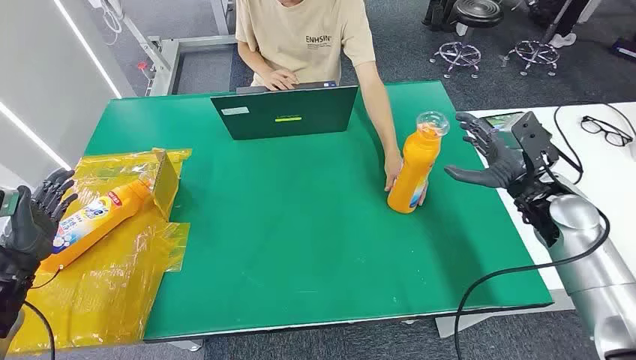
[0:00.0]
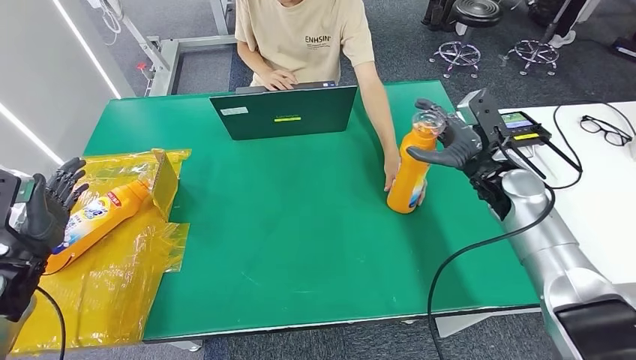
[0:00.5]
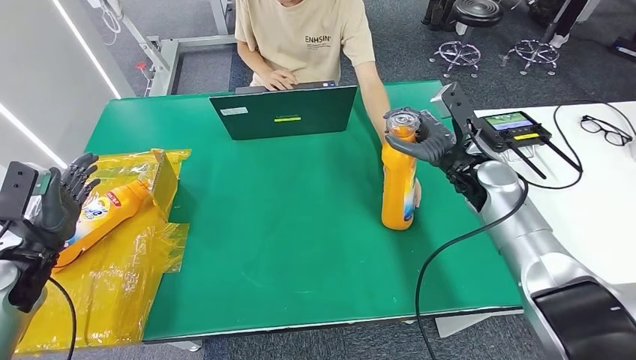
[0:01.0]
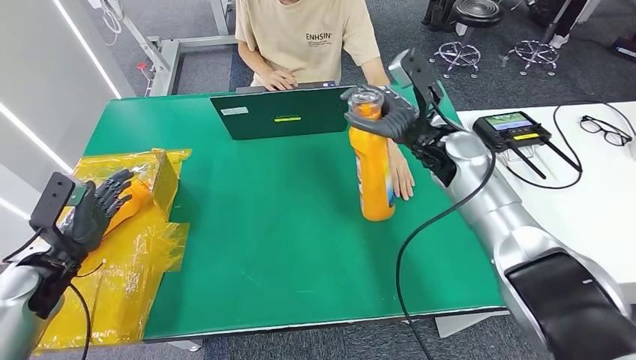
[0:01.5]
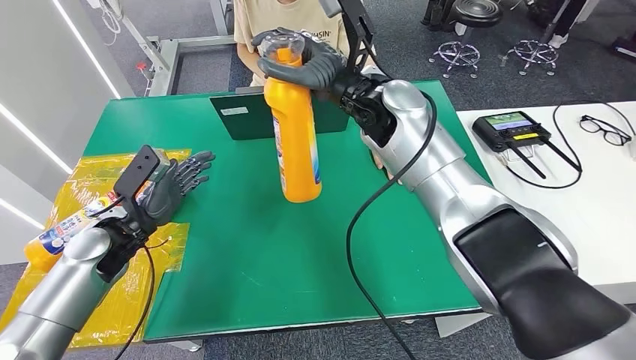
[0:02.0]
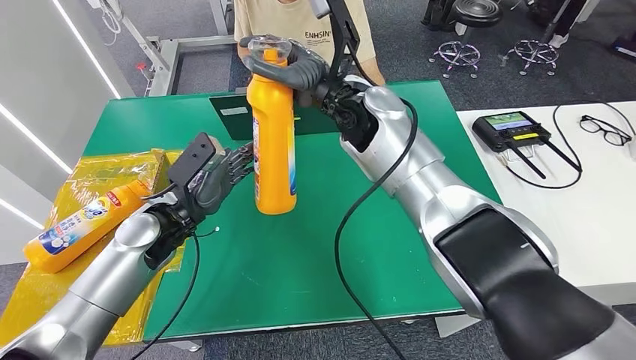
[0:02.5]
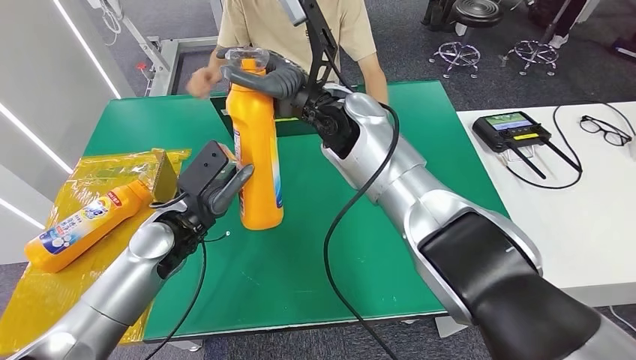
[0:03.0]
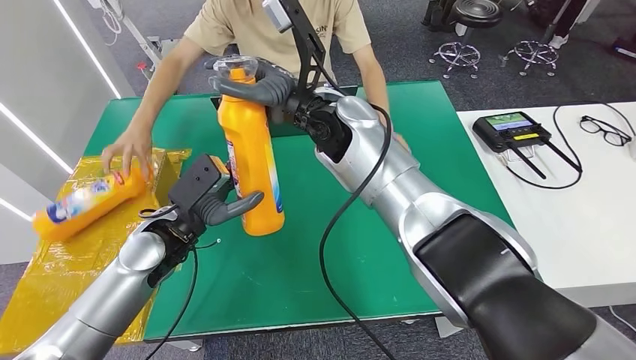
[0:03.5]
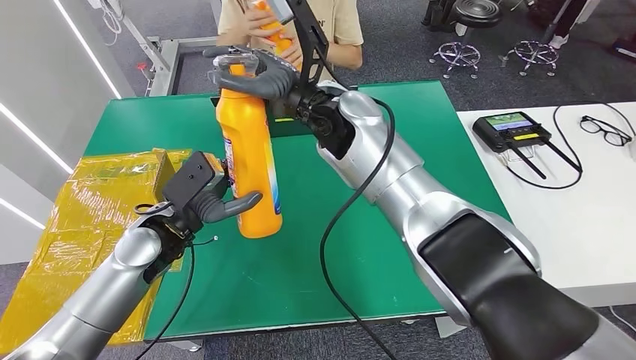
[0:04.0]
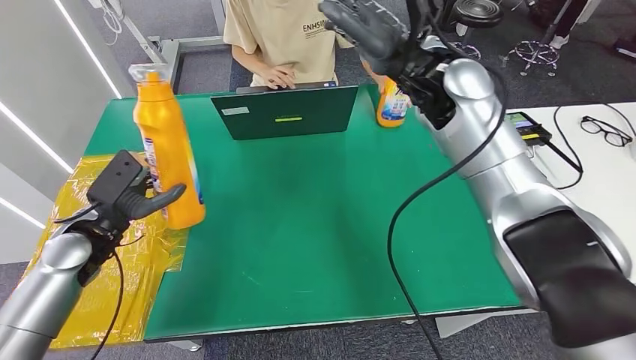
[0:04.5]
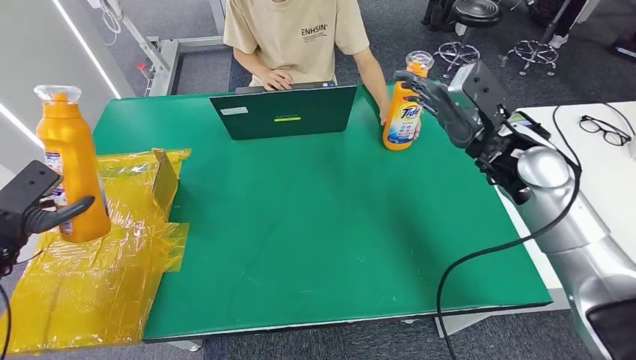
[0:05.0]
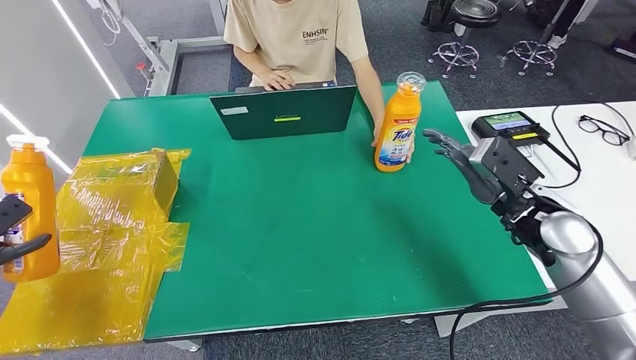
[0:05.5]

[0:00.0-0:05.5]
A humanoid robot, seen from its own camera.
Step, 0:00.0 to 0:02.0: Pick up the bottle from the table.
Step, 0:02.5 to 0:05.5: Turn the bottle to the front side.
